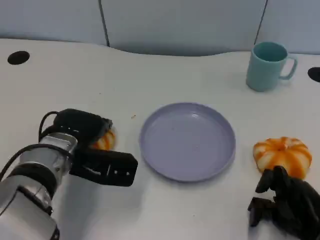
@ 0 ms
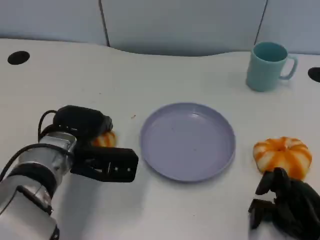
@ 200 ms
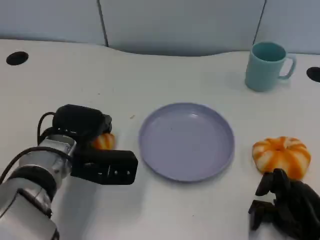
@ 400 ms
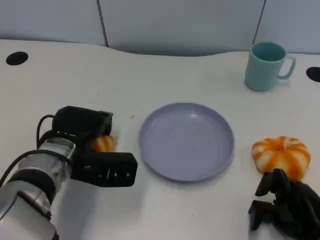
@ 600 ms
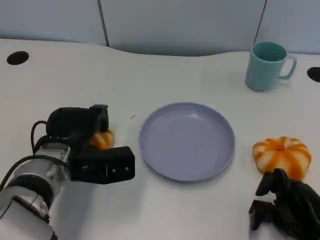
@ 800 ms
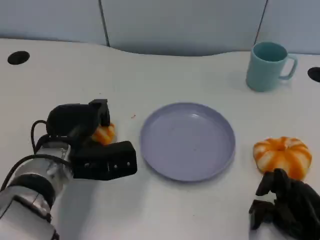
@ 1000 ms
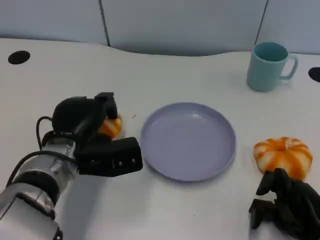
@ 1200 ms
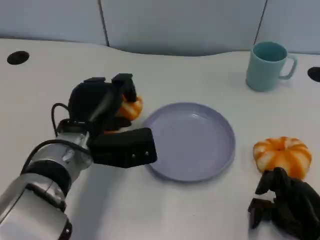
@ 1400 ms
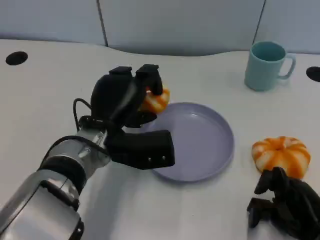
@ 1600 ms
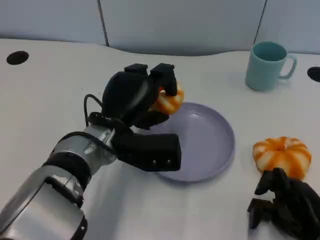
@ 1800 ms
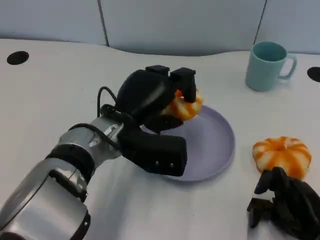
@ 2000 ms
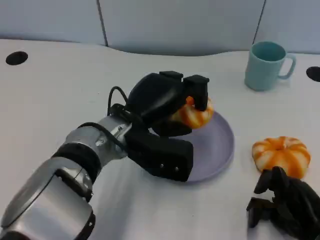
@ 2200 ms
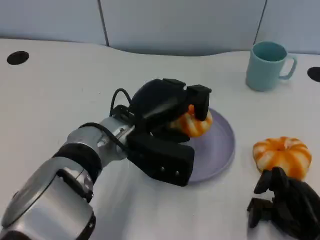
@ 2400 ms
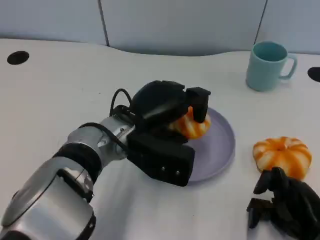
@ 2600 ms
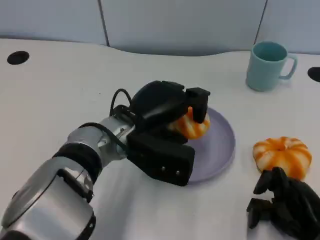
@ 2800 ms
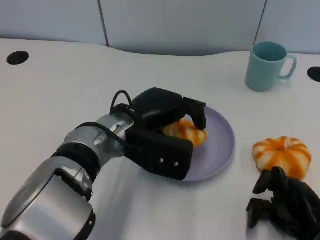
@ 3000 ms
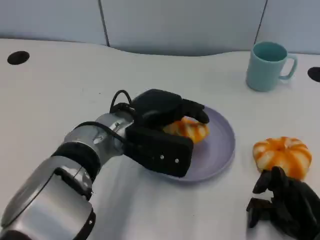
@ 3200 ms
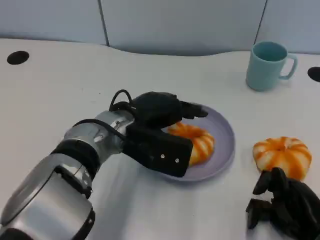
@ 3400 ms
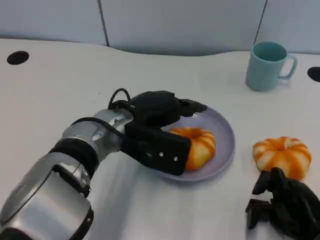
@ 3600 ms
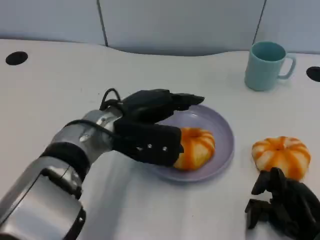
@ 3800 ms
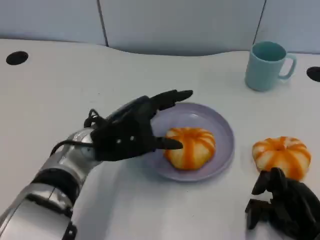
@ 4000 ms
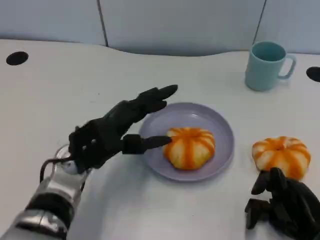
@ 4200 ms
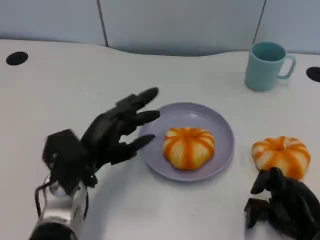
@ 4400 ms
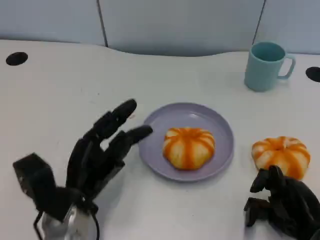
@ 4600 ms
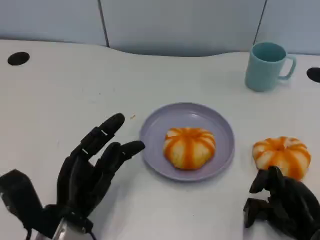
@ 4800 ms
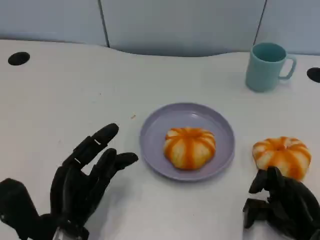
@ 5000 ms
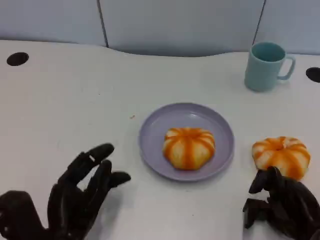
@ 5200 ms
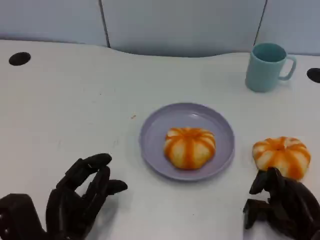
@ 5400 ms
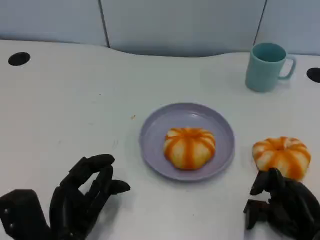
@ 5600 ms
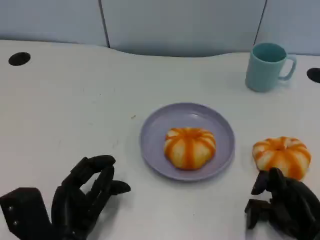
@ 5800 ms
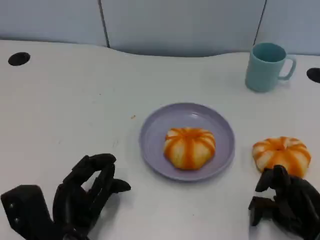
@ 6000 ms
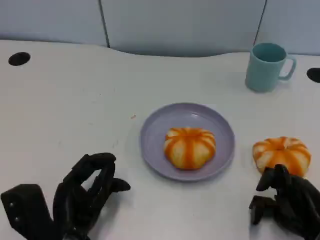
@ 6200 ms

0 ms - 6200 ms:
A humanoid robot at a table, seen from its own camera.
Task of the whole recording: Grasp the bread from the table and place it into the plate.
0 ms - 1600 ms: The left hand moves to the right, about 5 cm.
3200 ms - 4600 ms: The left hand shifts approximately 15 cm to the left, backward and downward.

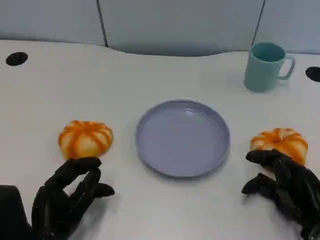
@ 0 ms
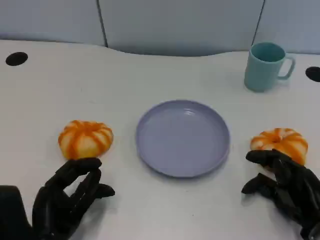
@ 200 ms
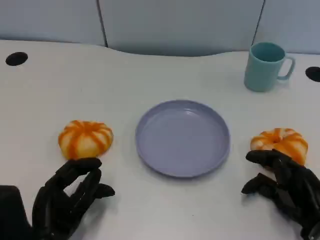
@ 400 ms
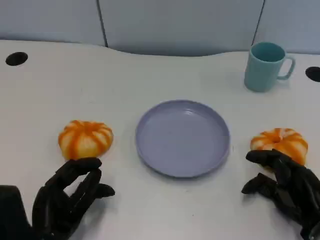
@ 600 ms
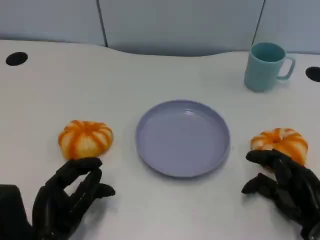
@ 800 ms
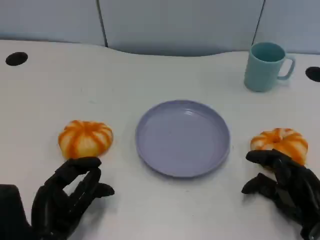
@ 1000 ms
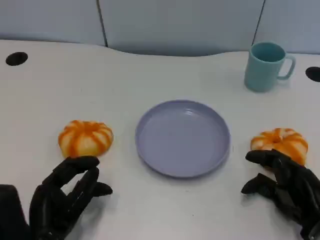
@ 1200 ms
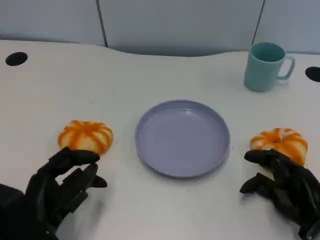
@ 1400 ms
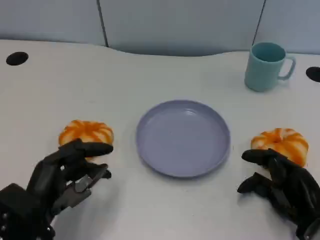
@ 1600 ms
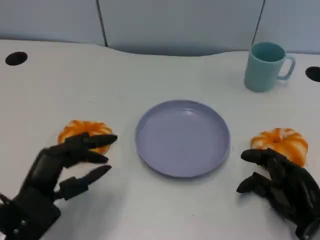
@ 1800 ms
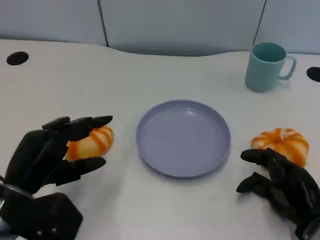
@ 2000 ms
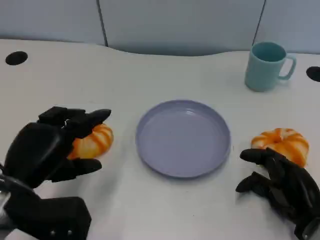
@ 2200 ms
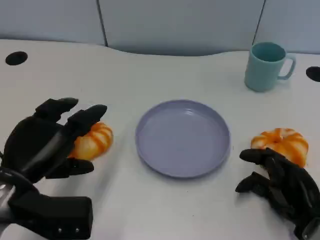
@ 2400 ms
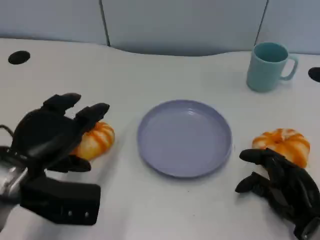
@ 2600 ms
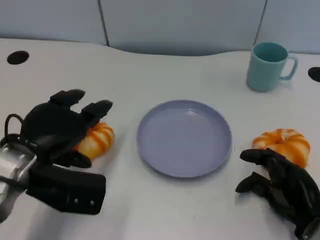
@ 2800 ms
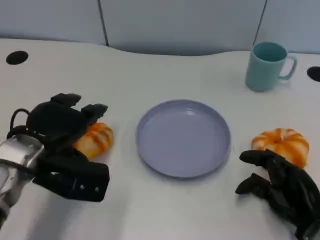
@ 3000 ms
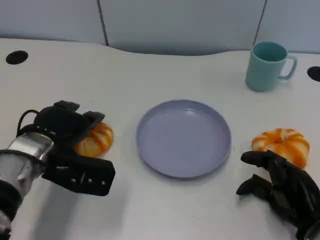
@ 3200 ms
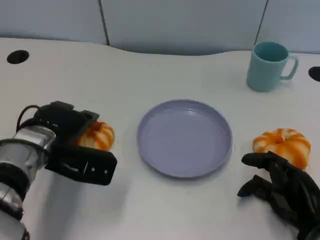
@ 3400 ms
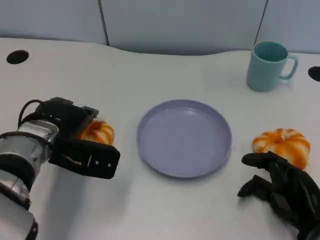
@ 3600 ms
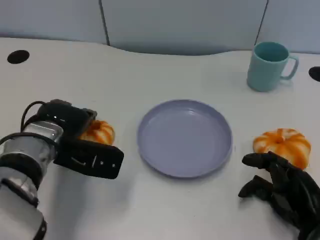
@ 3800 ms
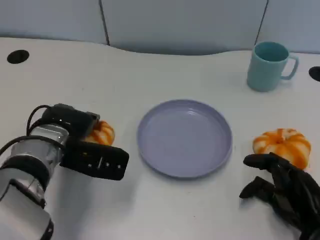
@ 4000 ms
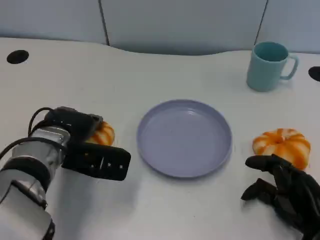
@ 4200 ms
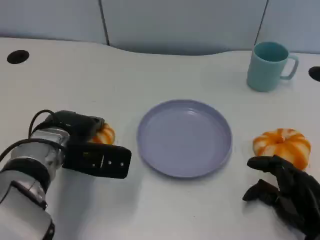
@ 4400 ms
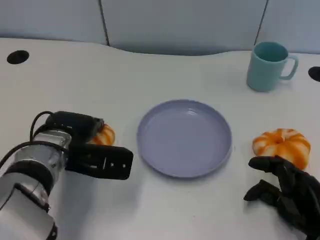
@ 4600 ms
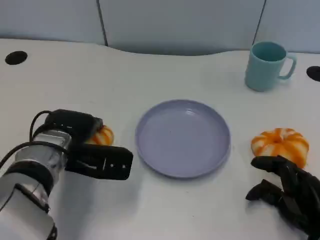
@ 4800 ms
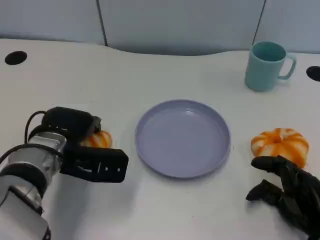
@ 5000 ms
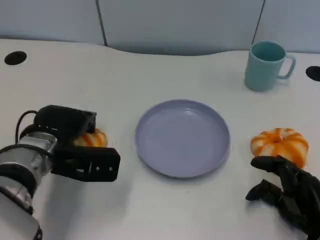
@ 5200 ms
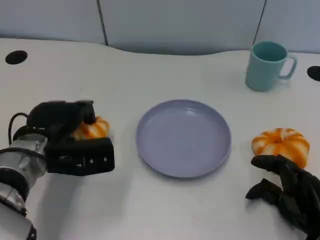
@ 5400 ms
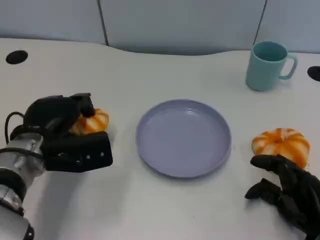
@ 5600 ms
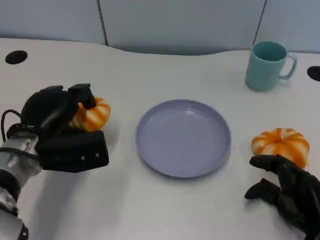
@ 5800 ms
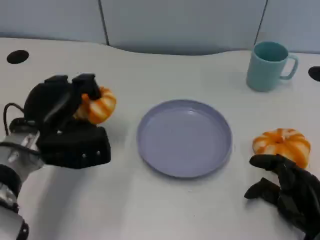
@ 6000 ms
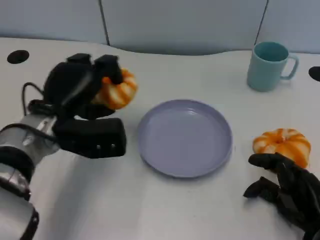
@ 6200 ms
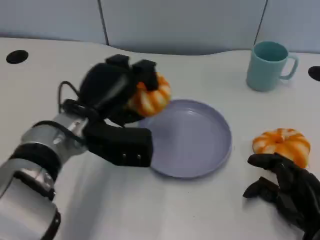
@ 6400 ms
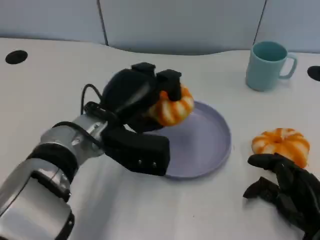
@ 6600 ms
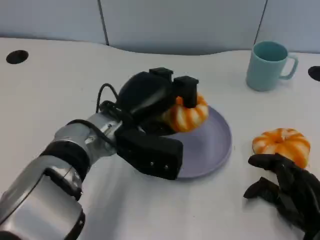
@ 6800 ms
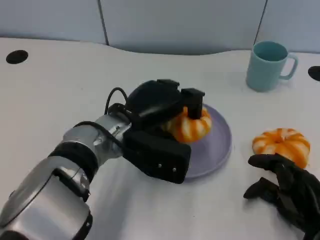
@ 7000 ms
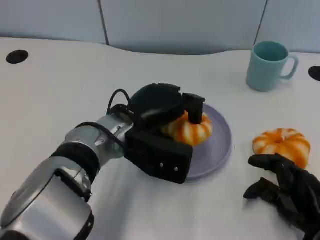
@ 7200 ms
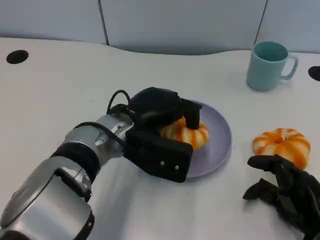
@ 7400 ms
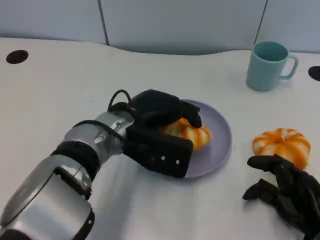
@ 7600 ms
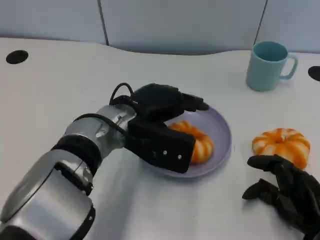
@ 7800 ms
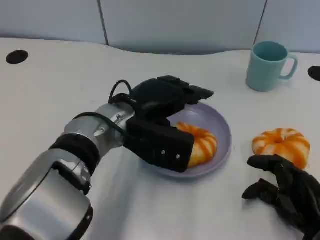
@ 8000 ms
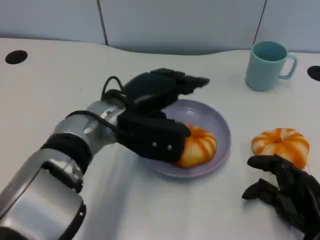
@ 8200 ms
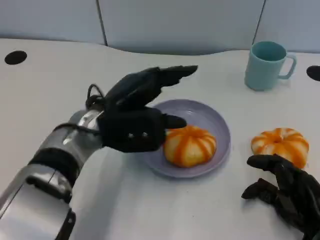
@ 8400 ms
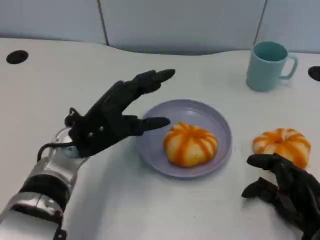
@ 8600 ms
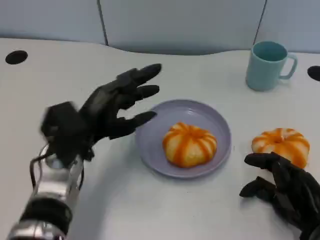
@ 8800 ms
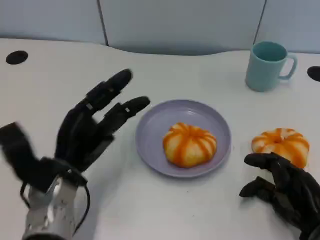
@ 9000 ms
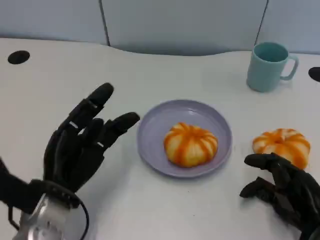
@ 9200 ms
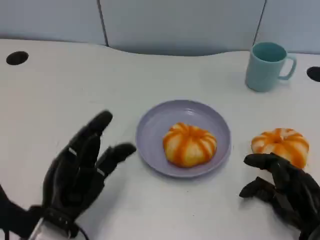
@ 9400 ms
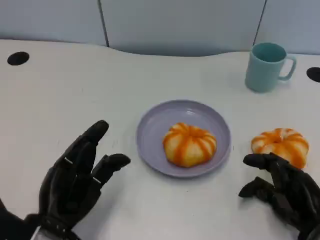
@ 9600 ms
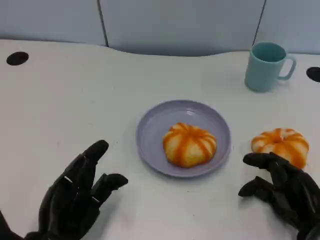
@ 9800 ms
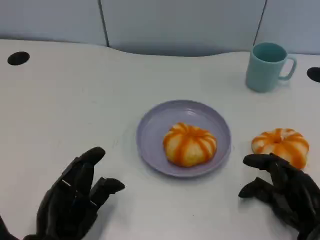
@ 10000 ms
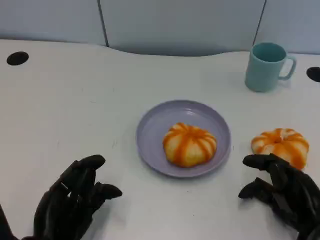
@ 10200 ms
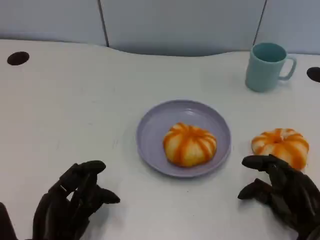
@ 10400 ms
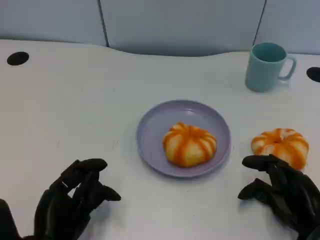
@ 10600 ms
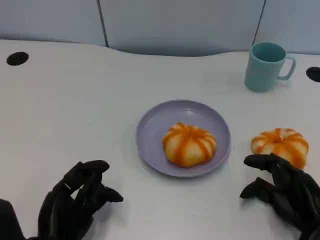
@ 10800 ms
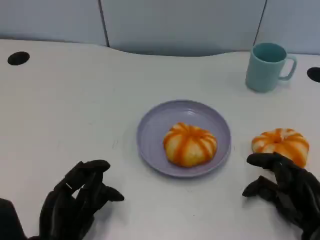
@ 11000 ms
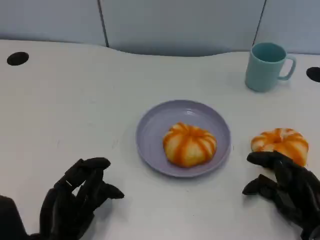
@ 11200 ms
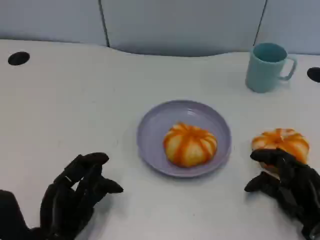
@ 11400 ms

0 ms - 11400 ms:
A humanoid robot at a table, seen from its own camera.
Task of the whole recording: Grasp the bread from the table and place it into the plate.
1400 ms - 2800 ms: The left hand goes roughly 10 cm forward and upward.
2800 ms - 4200 ms: The left hand shifts by approximately 5 cm.
5600 ms - 7200 ms: The left hand travels to the right by about 15 cm.
7200 ms - 8600 ms: The left hand heads to the left, covering roughly 5 cm.
8600 ms - 10000 ms: The left hand shifts some 15 cm backward and downward.
10000 ms - 11400 ms: The hands make only small movements.

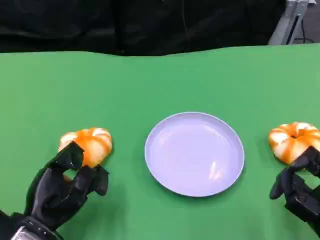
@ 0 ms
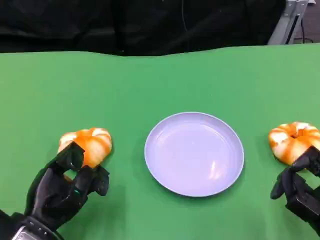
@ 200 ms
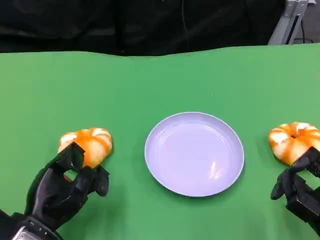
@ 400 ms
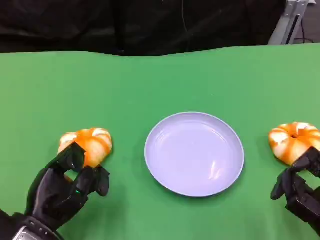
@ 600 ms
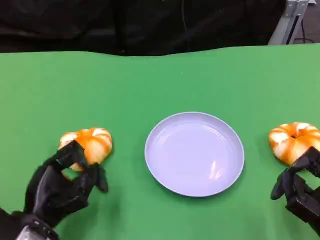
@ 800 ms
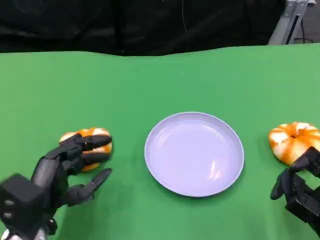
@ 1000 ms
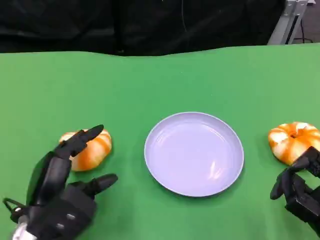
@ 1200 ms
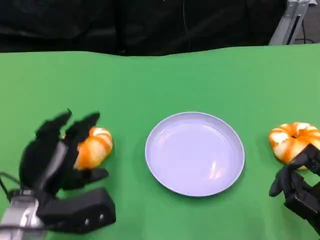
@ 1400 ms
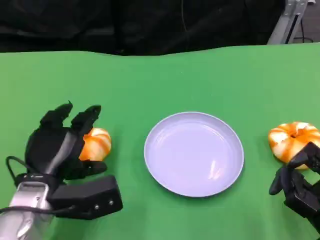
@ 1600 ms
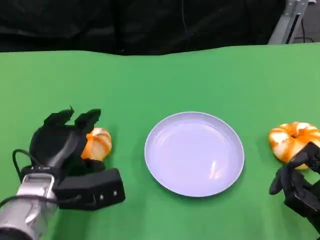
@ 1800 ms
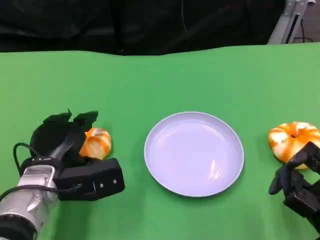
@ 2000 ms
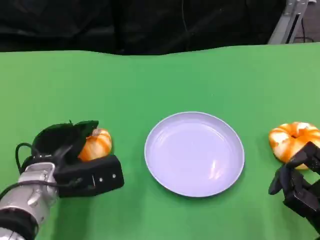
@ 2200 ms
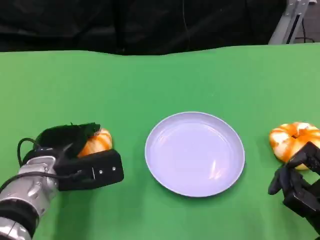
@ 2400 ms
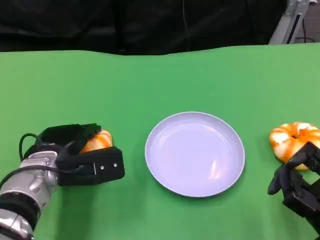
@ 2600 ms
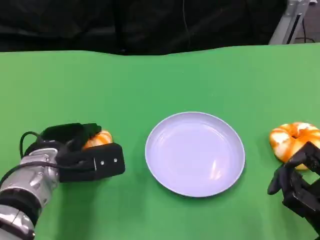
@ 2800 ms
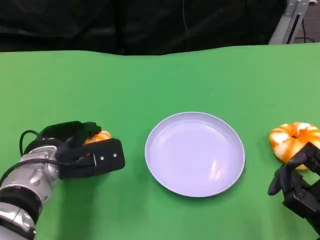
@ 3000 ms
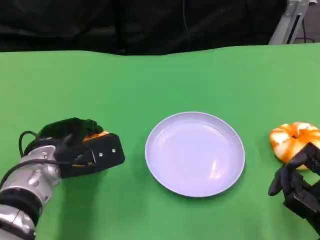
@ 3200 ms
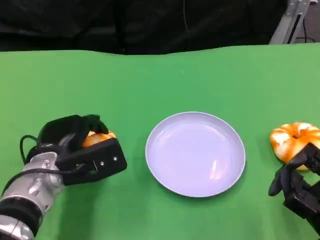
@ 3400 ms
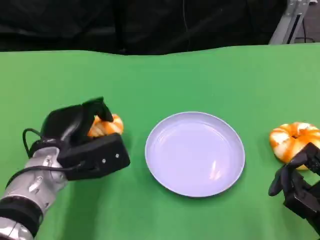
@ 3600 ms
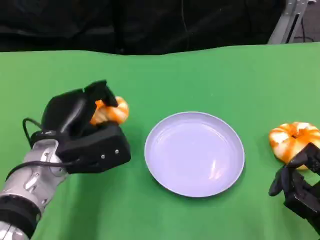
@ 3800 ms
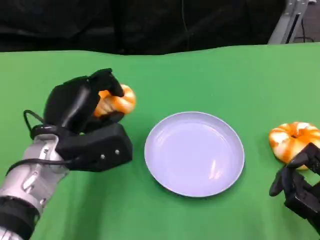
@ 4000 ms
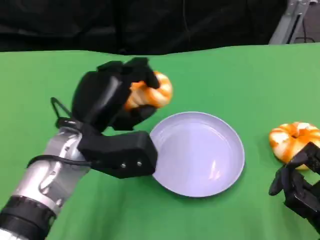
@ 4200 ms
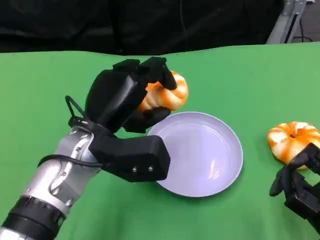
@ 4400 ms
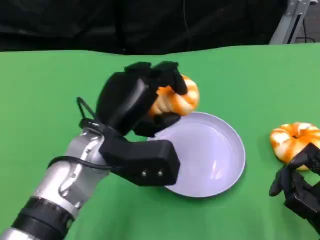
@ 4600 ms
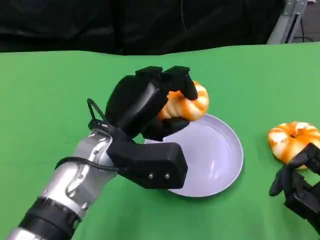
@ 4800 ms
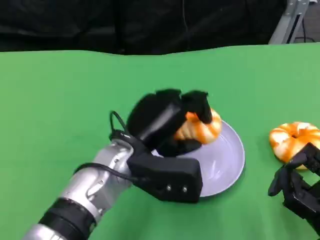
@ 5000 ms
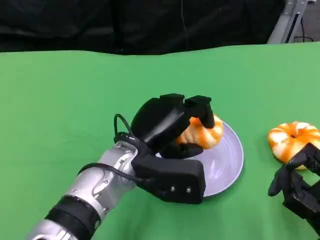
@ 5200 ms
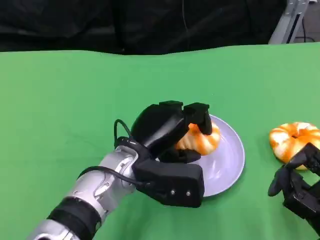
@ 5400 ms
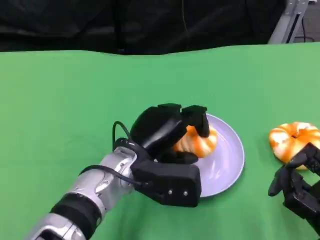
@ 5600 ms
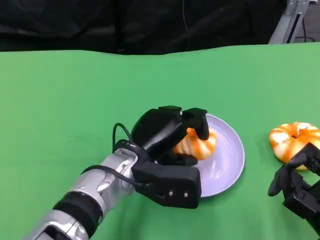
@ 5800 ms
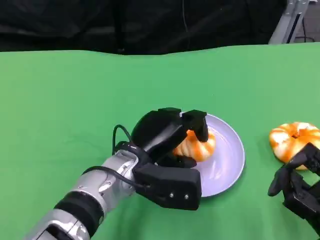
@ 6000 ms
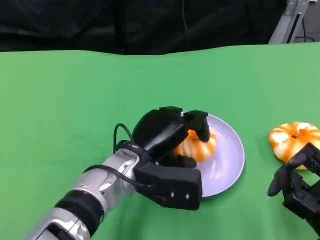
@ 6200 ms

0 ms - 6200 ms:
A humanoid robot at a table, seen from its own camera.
Task of the whole recording: Grasp the bread from the table and place it into the plate.
0 ms - 1600 ms: The left hand travels forward by about 5 cm.
3200 ms - 4600 ms: The left hand is displaced to the right and upward by about 10 cm.
4600 ms - 6200 ms: The left hand is displaced downward by approximately 5 cm.
